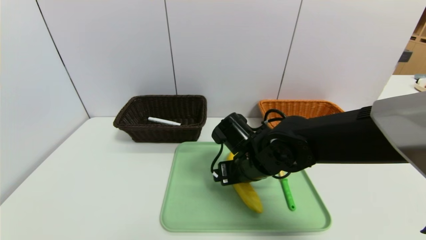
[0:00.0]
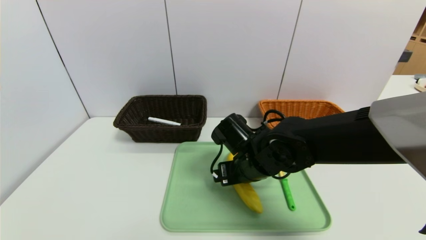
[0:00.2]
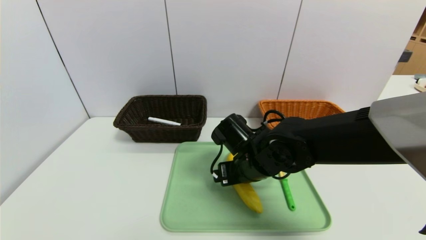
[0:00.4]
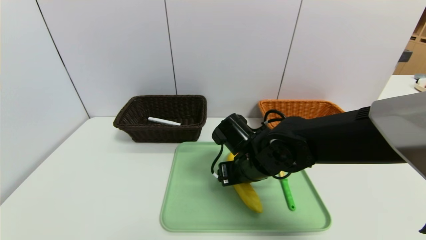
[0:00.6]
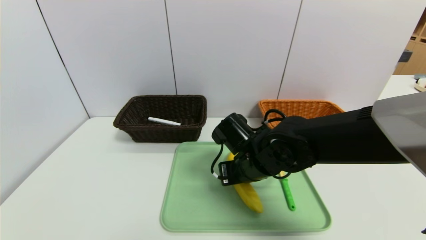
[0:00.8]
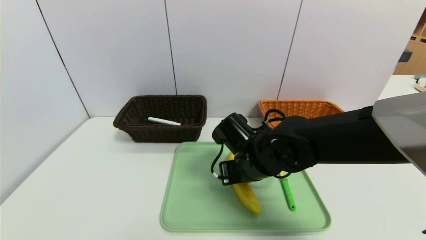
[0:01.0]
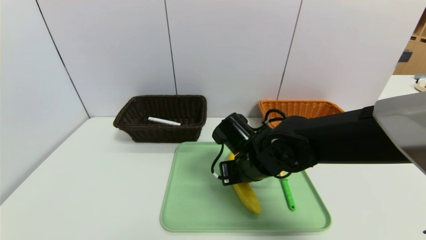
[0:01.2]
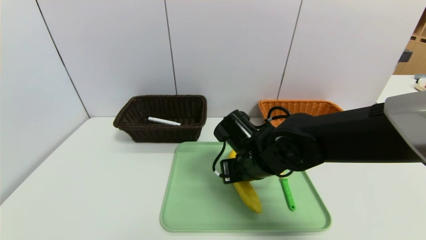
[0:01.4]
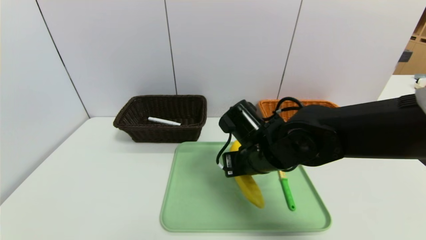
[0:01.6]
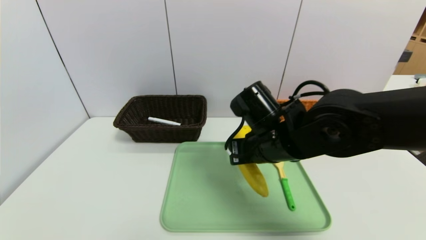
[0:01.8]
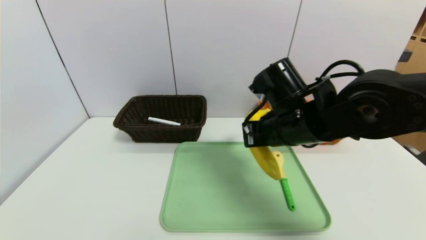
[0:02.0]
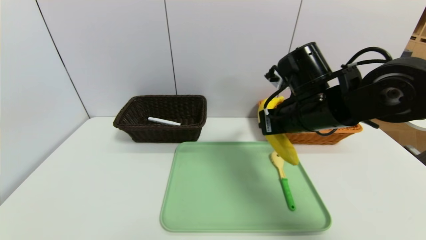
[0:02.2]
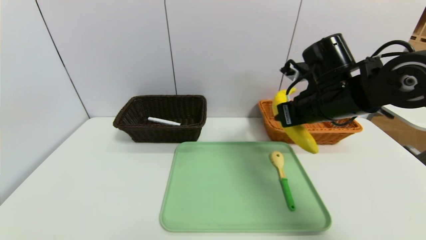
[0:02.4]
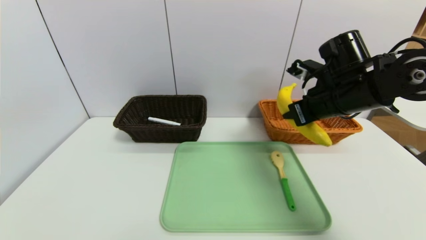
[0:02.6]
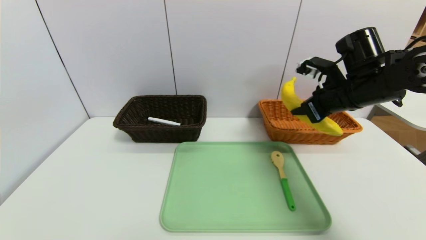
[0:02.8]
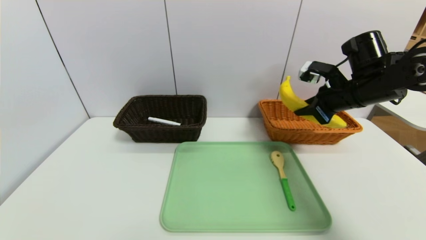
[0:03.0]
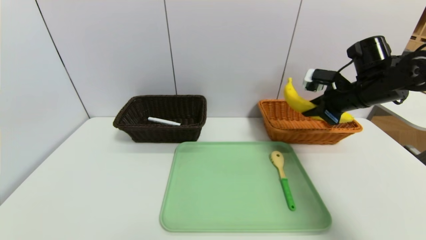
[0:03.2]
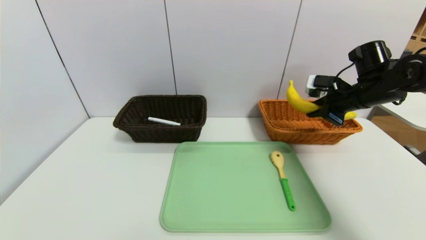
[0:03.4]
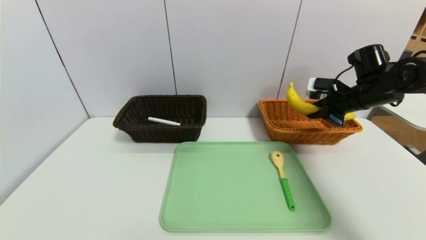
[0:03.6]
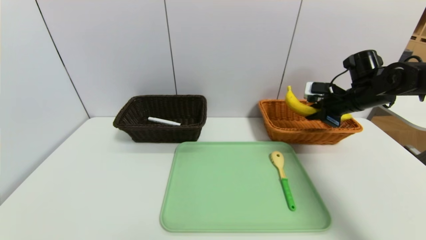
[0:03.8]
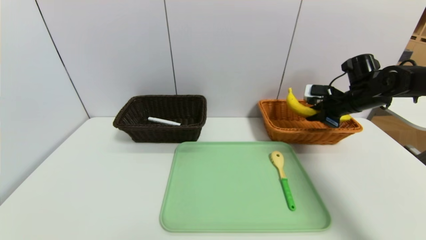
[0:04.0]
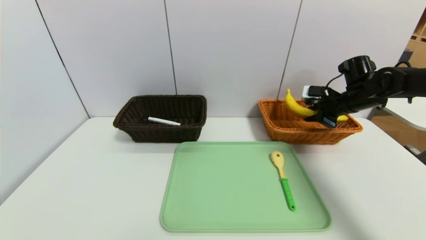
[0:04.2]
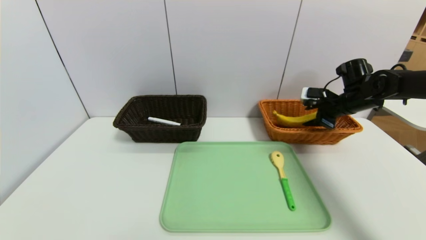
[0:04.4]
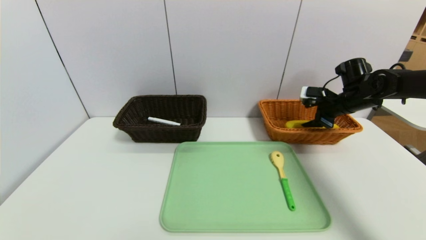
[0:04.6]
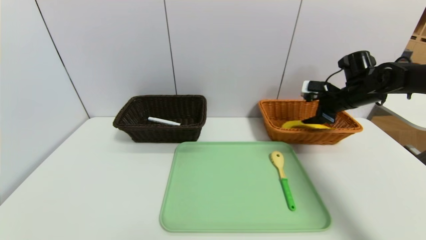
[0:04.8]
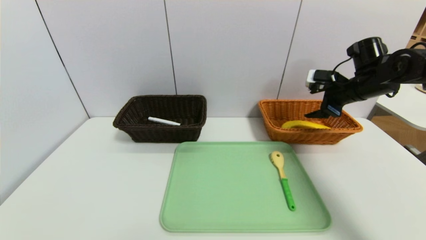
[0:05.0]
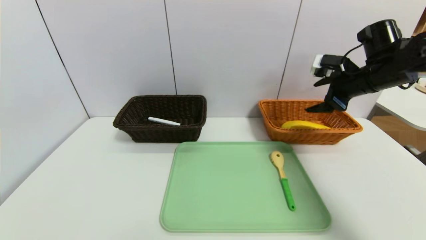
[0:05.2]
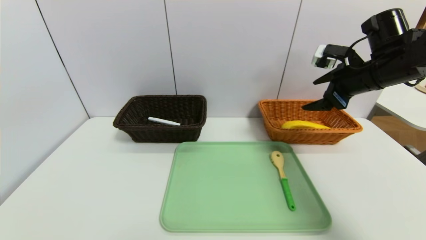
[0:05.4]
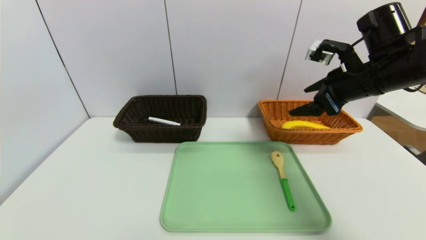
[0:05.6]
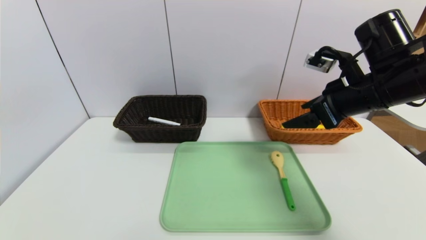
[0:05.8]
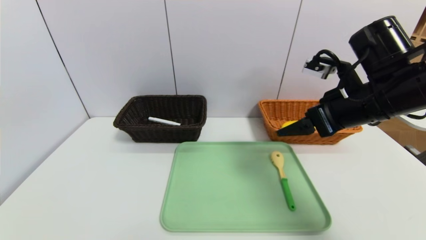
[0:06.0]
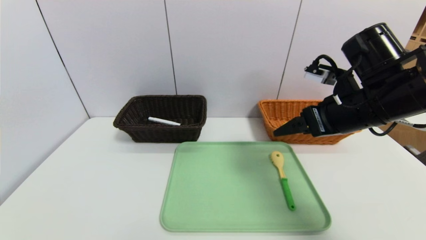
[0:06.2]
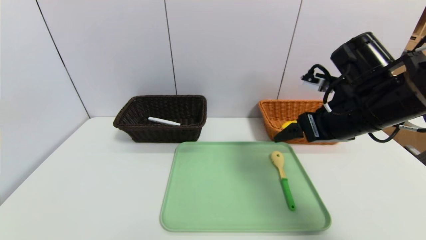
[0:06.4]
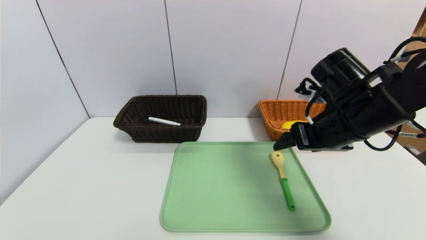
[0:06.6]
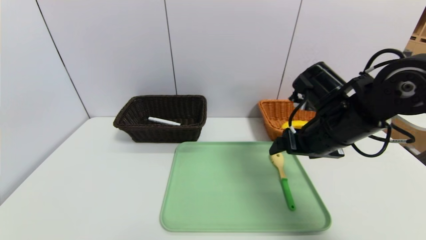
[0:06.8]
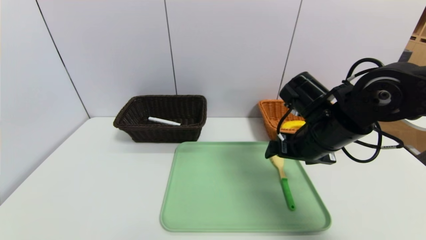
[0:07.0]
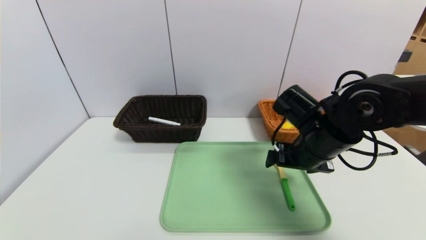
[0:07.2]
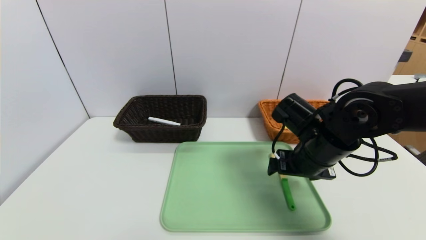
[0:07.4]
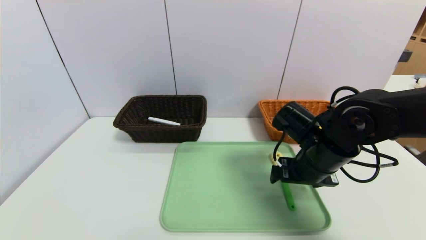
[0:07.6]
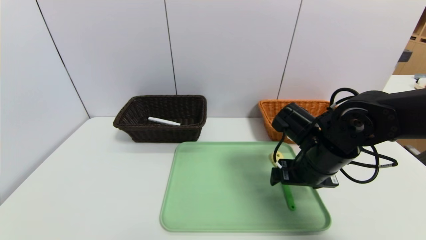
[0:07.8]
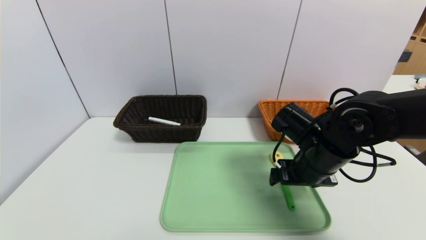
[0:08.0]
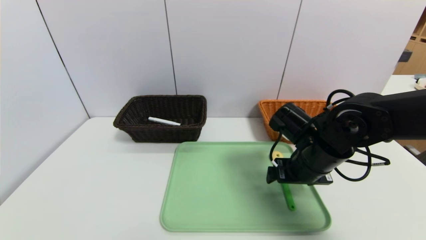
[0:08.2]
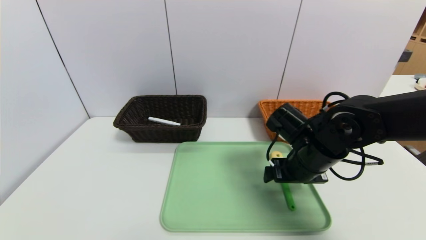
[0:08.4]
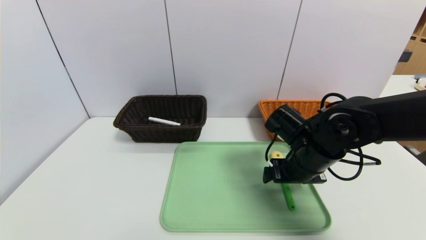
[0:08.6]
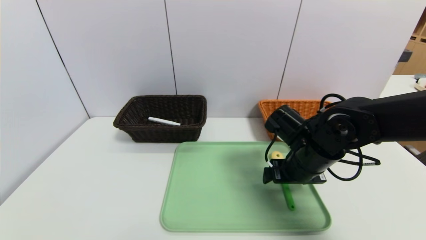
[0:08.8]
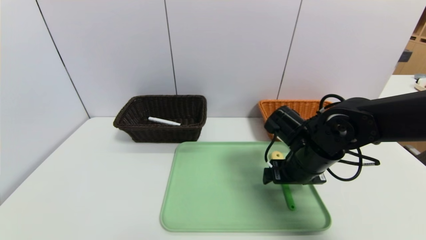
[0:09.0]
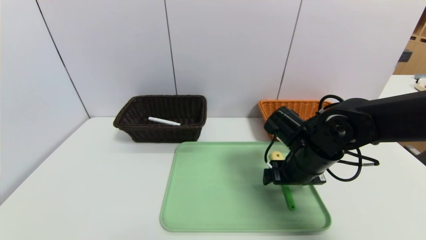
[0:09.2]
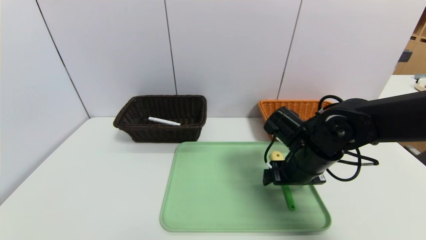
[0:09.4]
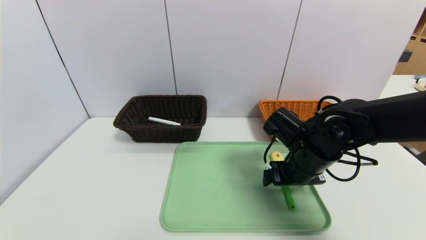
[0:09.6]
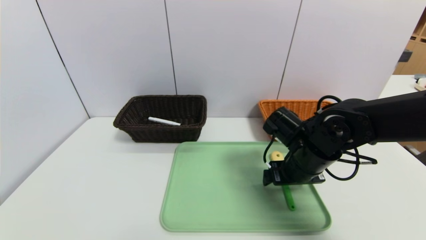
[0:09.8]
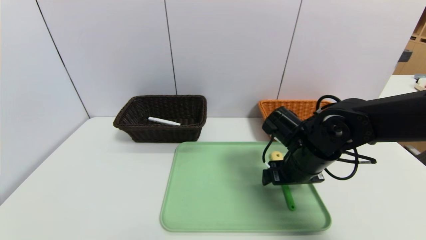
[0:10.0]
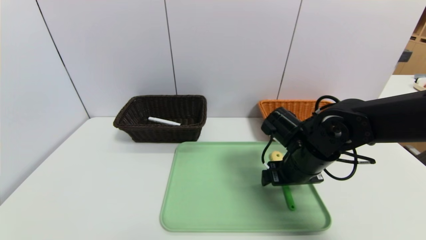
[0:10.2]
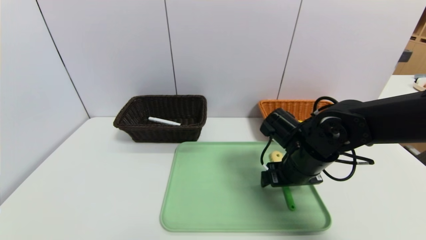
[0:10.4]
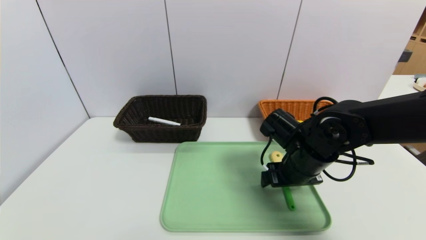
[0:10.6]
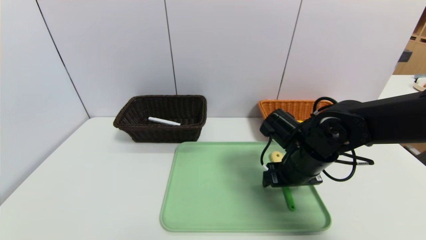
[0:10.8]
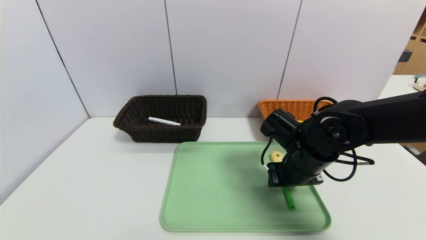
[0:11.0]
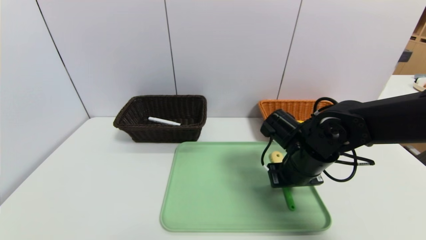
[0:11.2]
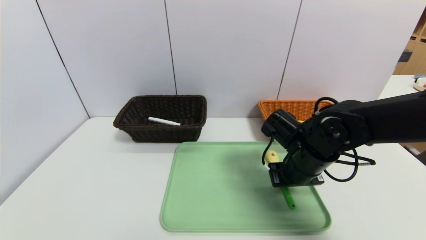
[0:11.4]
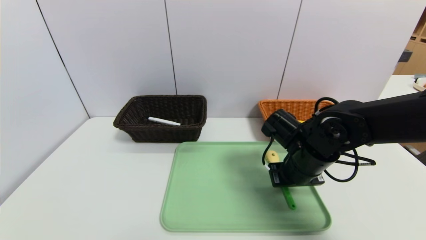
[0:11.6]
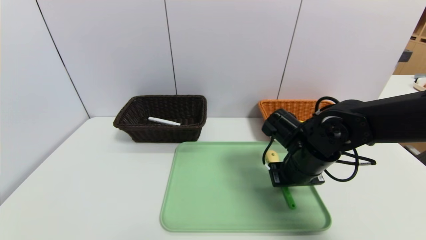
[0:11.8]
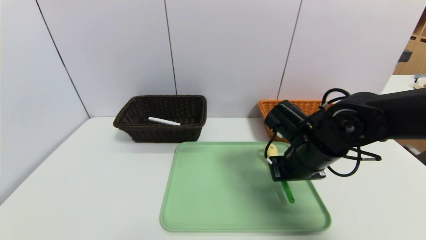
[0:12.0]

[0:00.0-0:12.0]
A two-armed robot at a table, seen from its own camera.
Task of the whole recording: place the food in the right basket with the right gripper, and place the non food items in the left basket with the left gripper.
Step, 0.0 to 4.8 s: Grasp the banana and put it in the right basket.
0.0 to 1.6 s: The right gripper closes its fingers.
1.6 to 3.0 s: The right gripper is displaced to the right and upward by approximately 20 cm.
3.0 to 4.4 s: The right gripper heads forward, to the right and downward, covering some 15 cm, and opens.
4.4 to 6.0 s: The right gripper goes approximately 20 cm backward, to the left and upward, and opens its fingers.
6.0 to 7.6 s: The right gripper travels downward and to the left by roughly 10 cm.
7.6 to 9.0 s: The grippers stay close to where they were, moving slightly.
9.0 to 10.4 s: Both grippers stay put.
10.4 to 12.0 s: The right gripper closes.

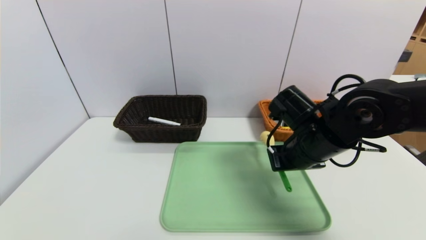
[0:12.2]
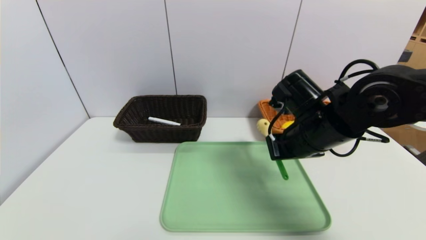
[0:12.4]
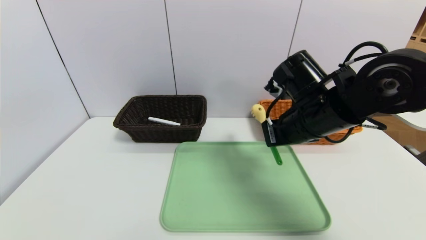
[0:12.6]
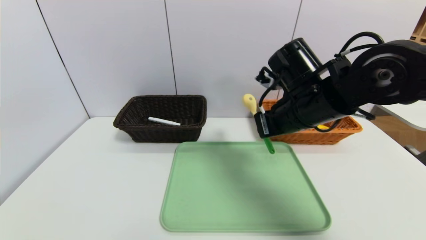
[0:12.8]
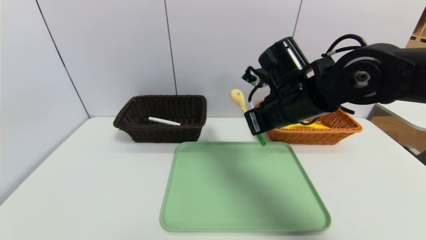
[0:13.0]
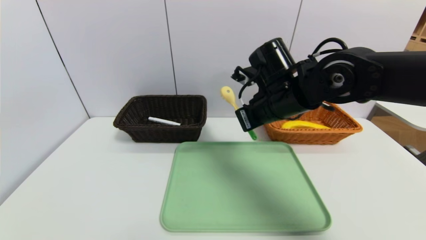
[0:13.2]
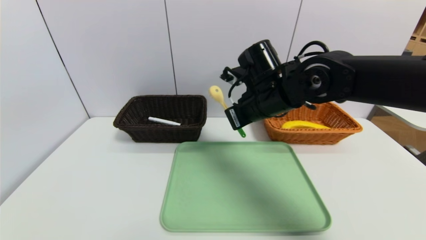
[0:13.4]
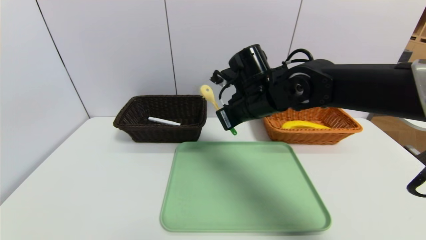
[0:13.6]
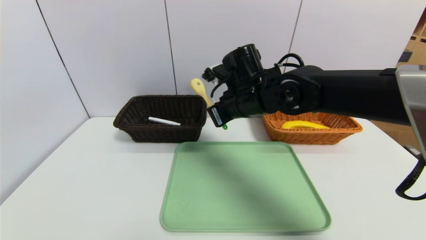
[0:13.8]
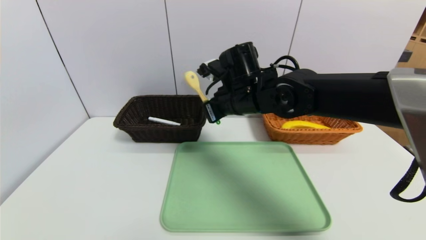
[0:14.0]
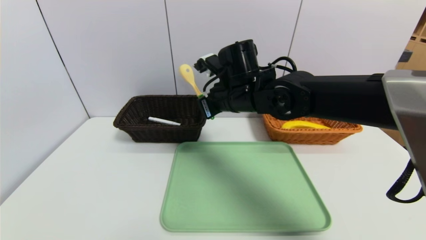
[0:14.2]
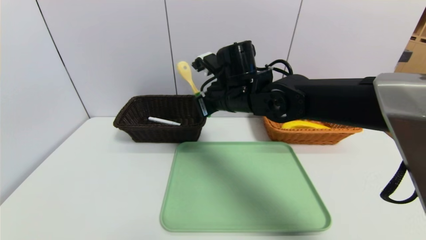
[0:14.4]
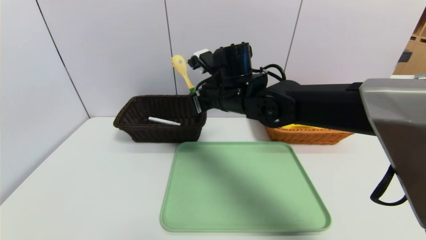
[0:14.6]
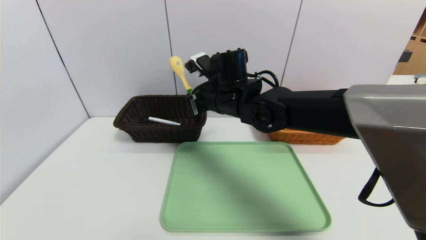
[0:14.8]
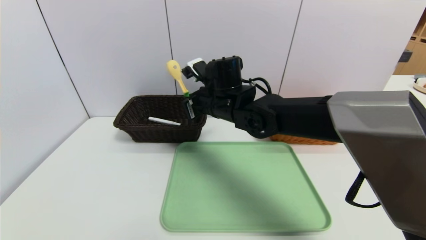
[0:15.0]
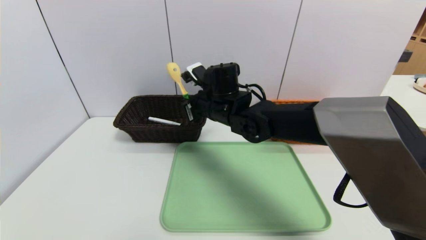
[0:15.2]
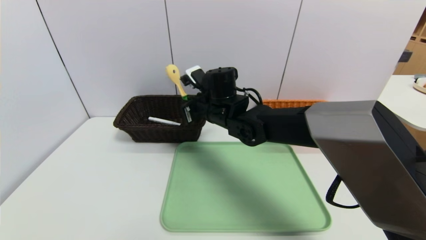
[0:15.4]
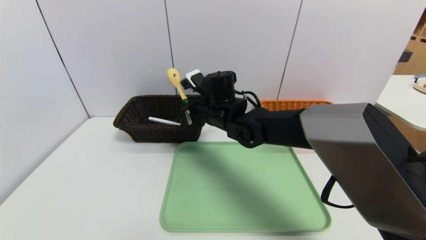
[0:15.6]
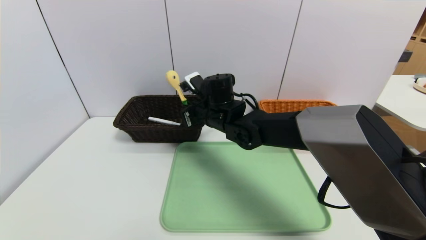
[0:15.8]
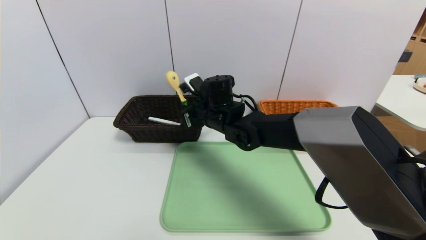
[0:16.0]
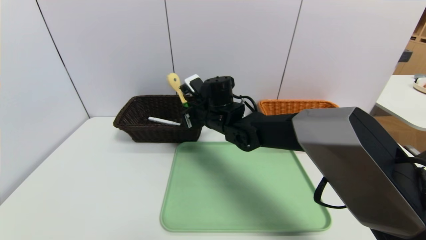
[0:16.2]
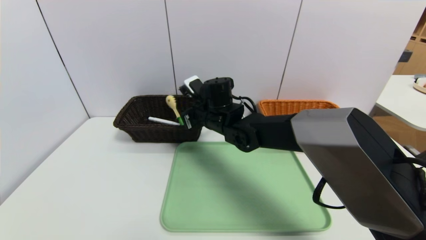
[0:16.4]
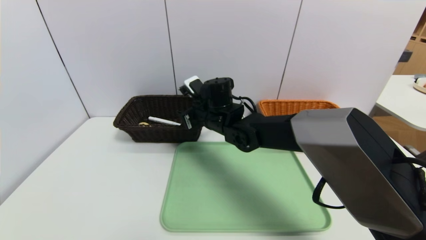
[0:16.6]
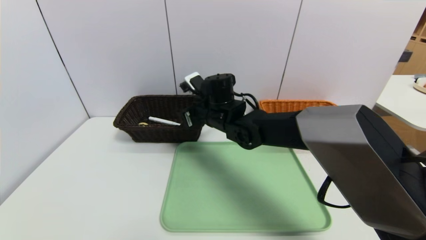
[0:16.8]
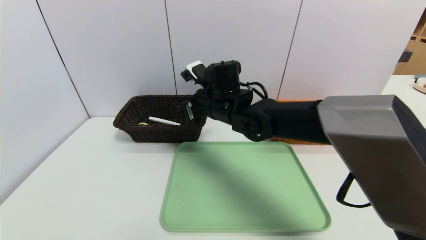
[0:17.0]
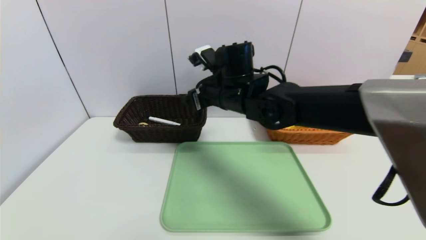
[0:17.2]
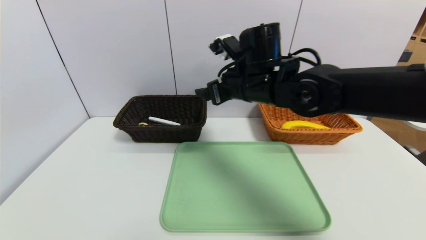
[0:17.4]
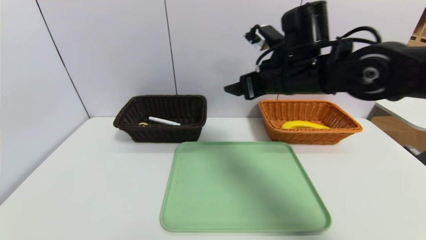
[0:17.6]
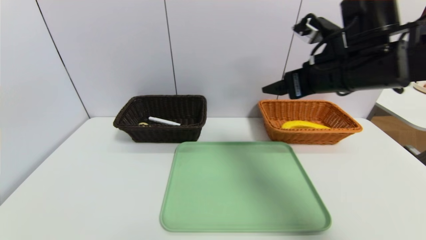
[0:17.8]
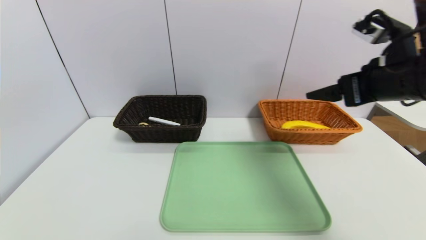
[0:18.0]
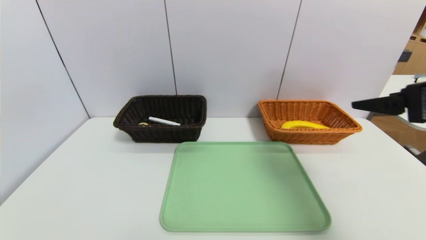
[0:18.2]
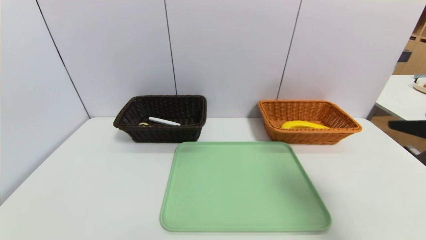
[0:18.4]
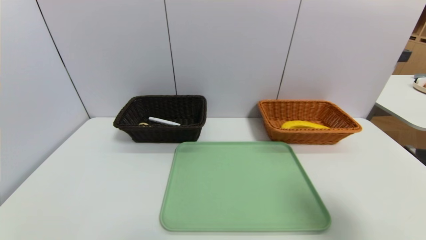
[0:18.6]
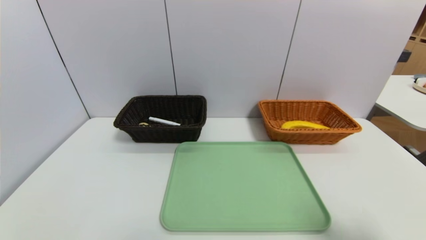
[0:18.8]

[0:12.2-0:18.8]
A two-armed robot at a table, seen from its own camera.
Task of the whole recording: place the food in the right basket with the right gripper, and place the non food items in the left basket with the left gripper.
Step, 12.2 to 16.6 s: Grasp the spoon and put it in the right basket.
12.2 to 13.8 s: The right gripper travels to the left and forward by some 15 cm.
13.8 to 15.4 s: The right gripper travels to the left by some 5 cm.
15.4 to 17.2 s: The right gripper goes roughly 5 cm upward, and opens its fingers.
17.2 to 18.8 s: The right gripper heads backward and to the right, covering about 40 cm.
